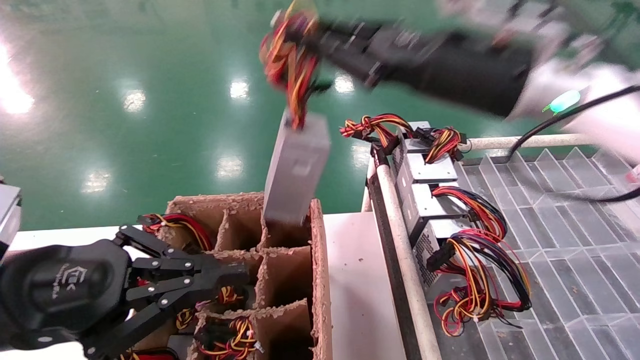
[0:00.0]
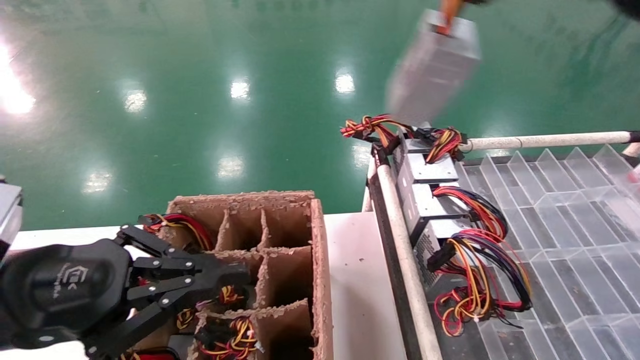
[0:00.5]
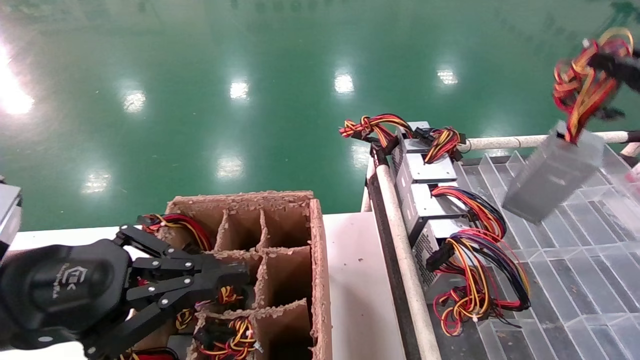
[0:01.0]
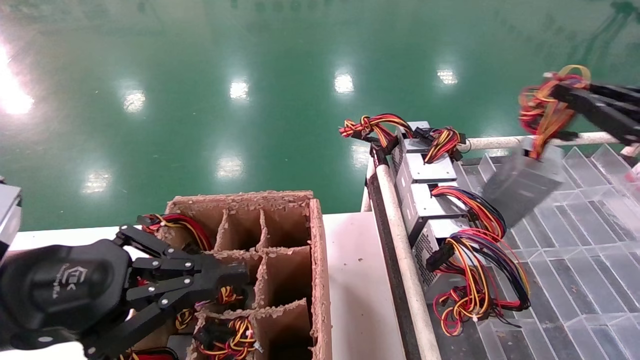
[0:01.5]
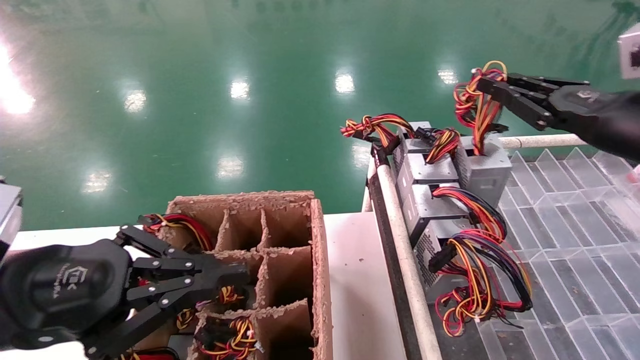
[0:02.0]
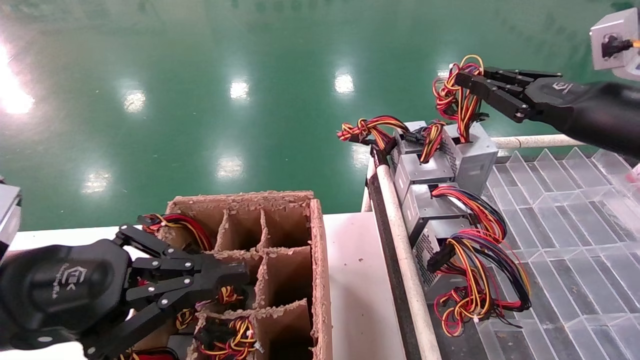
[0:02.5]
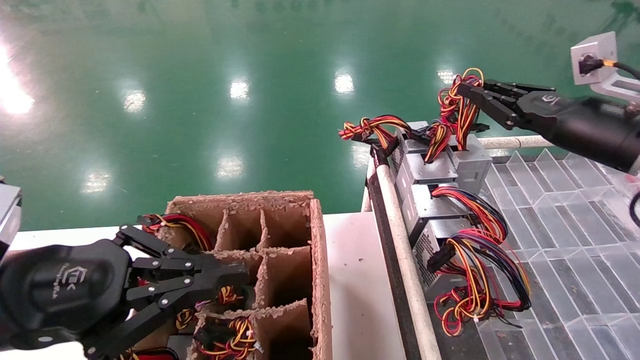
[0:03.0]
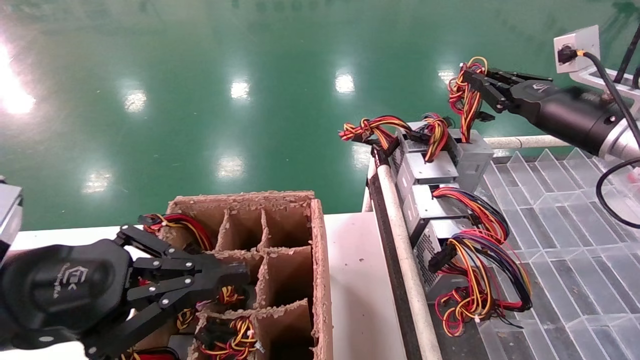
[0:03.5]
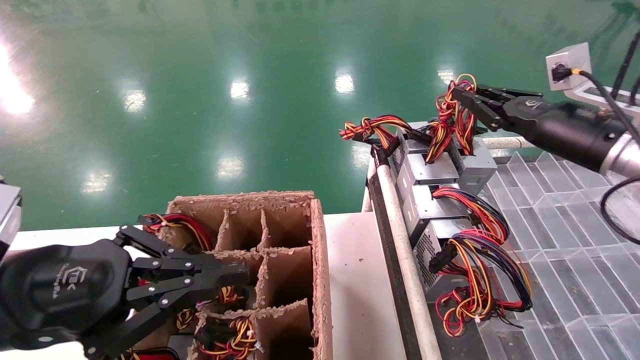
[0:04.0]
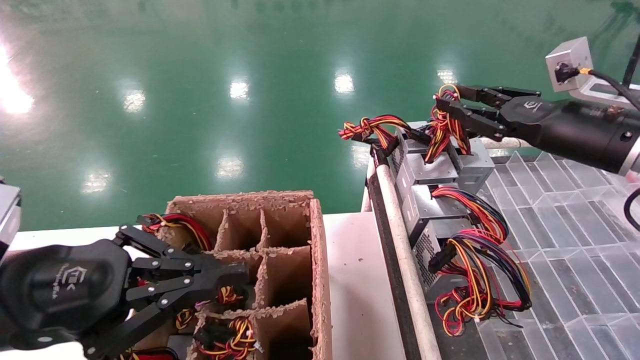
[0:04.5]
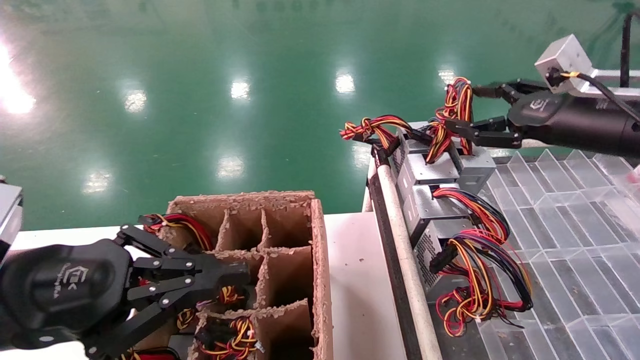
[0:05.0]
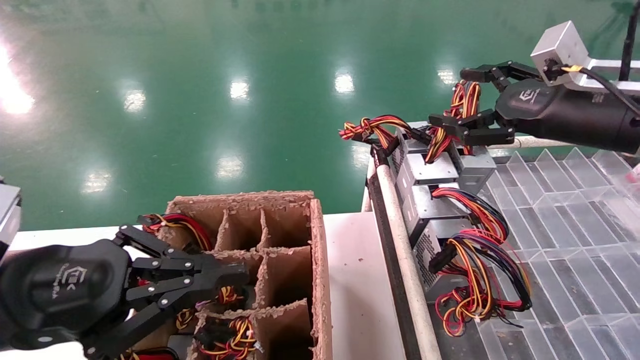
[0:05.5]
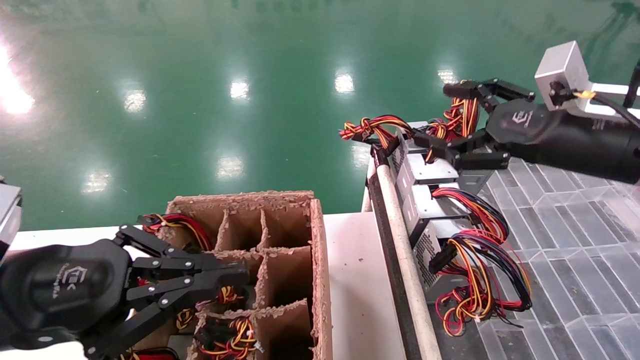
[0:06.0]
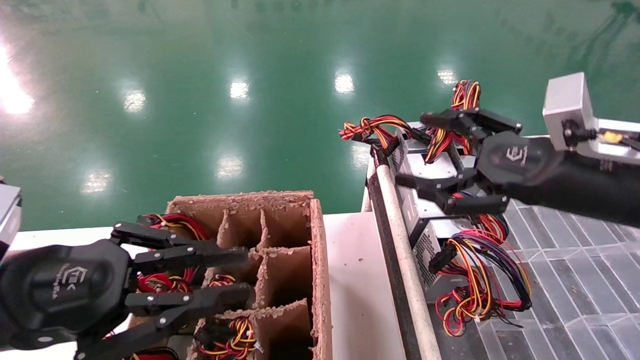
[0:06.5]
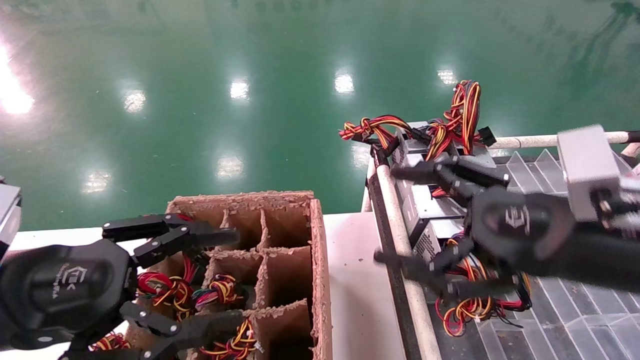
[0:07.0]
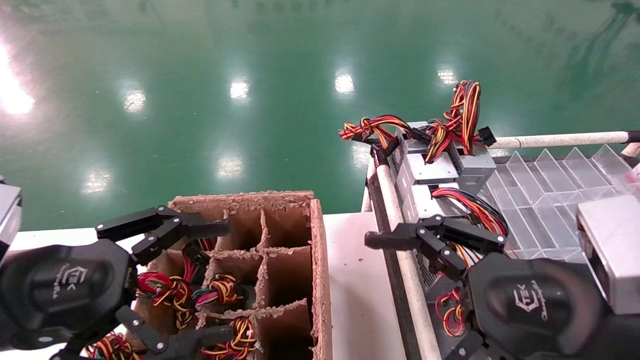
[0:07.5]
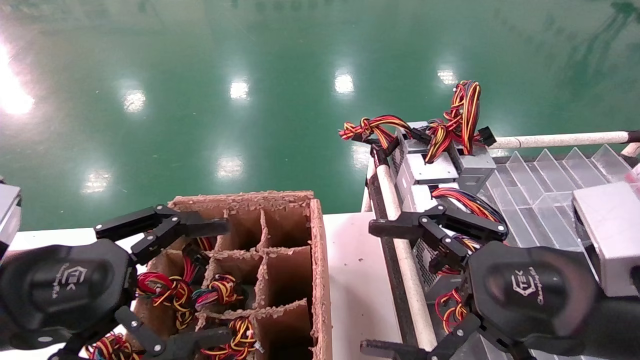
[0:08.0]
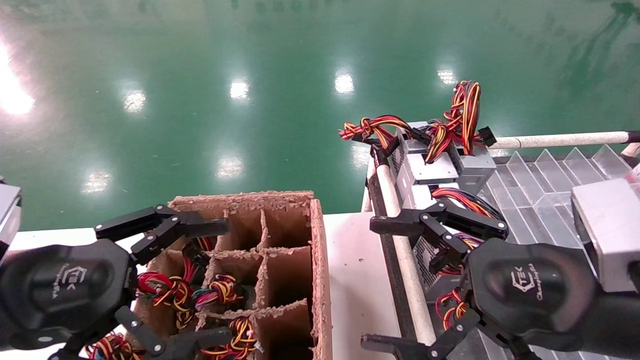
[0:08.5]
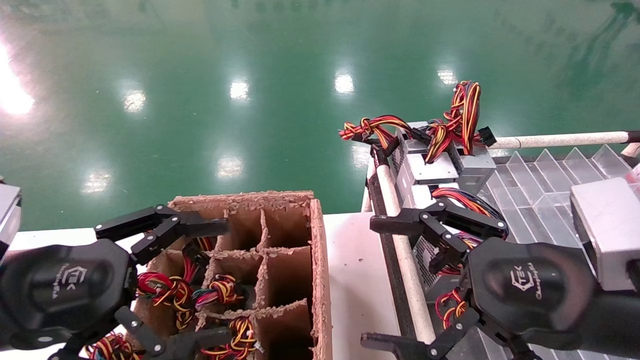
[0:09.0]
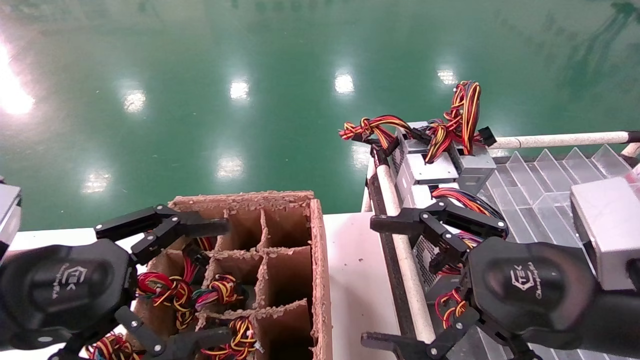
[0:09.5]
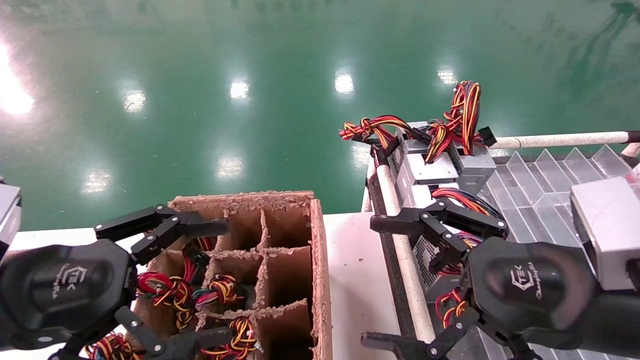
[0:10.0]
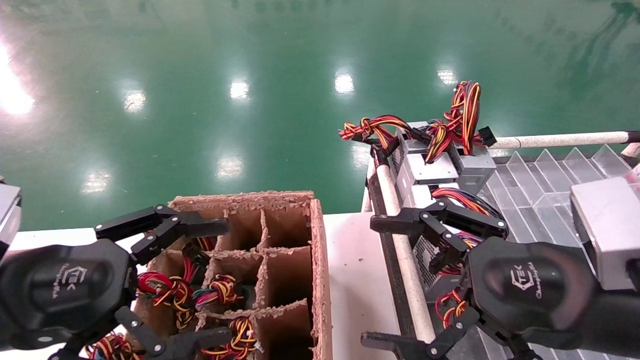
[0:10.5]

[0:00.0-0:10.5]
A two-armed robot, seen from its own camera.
Step, 0:00.0 to 0:04.0: Place the main unit power supply in the designated area.
0:00.0 to 0:02.0: The right gripper is displaced to the right by some 20 cm.
0:02.0 to 0:04.0: The right gripper travels forward by approximately 5 cm.
0:04.0 to 0:06.5: The right gripper is displaced backward and to the left by some 15 cm, and opens its fingers.
0:06.5 to 0:08.5: The left gripper opens; the right gripper moves backward and downward, about 10 cm.
0:08.5 to 0:10.5: Neither gripper changes place.

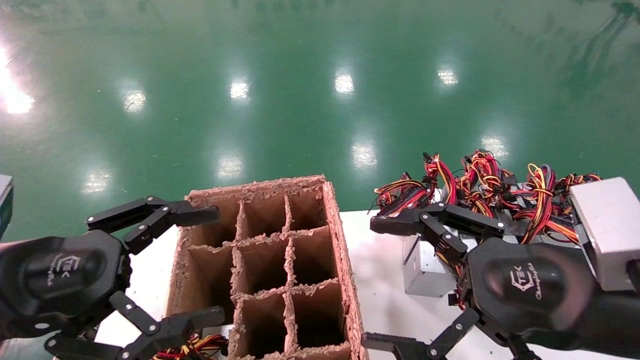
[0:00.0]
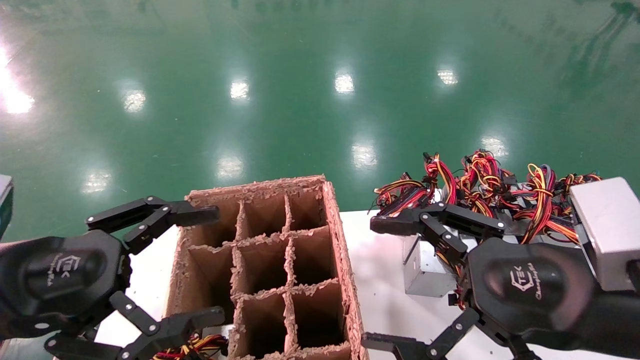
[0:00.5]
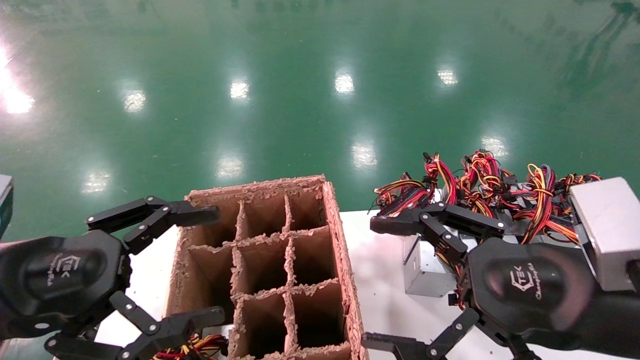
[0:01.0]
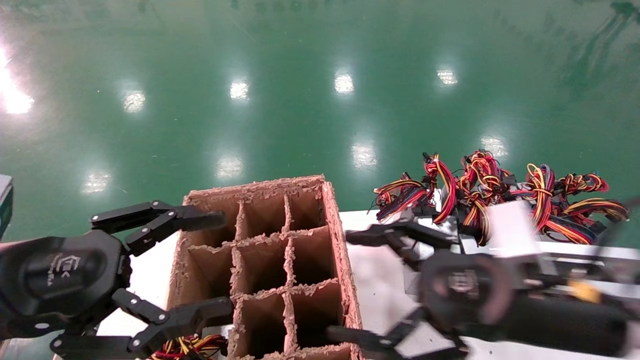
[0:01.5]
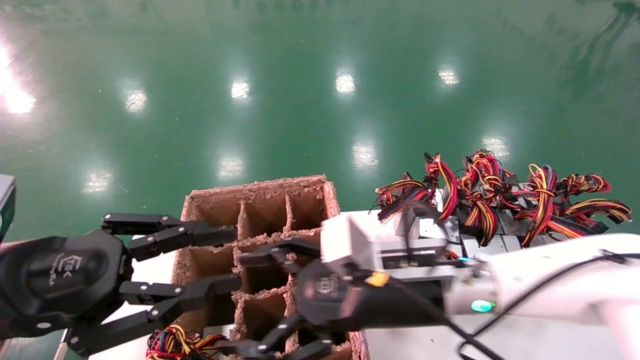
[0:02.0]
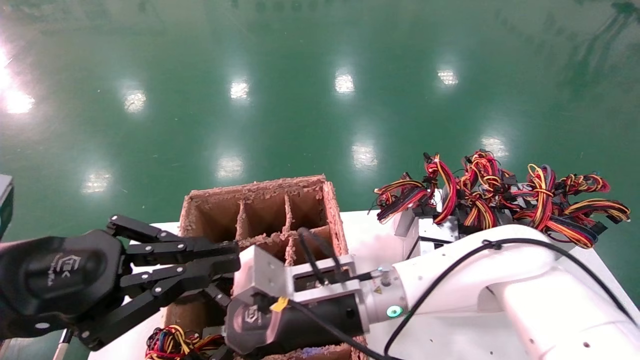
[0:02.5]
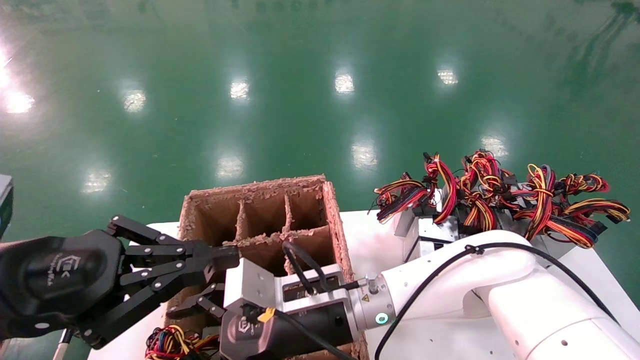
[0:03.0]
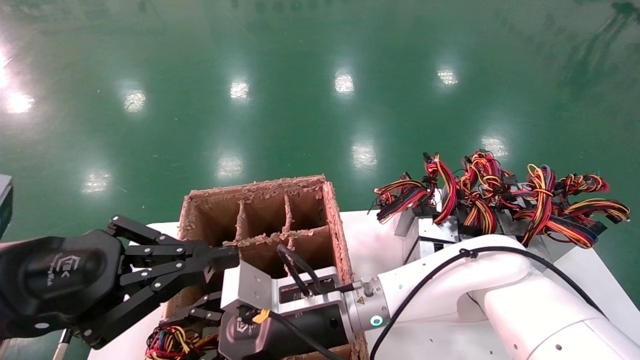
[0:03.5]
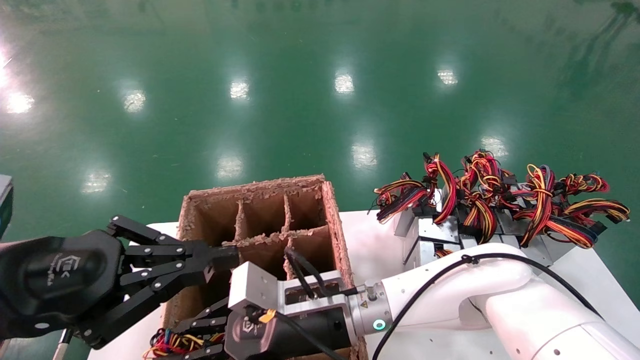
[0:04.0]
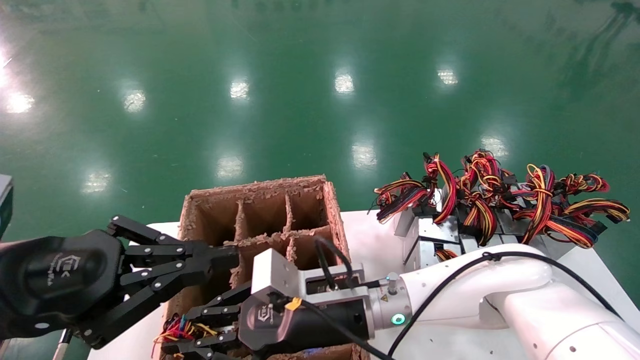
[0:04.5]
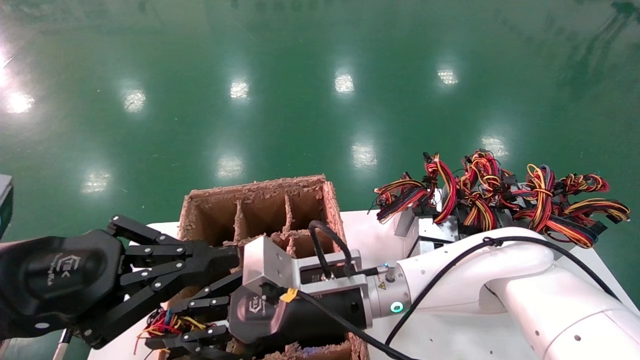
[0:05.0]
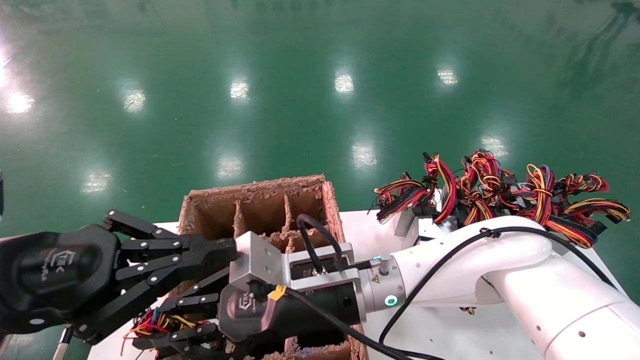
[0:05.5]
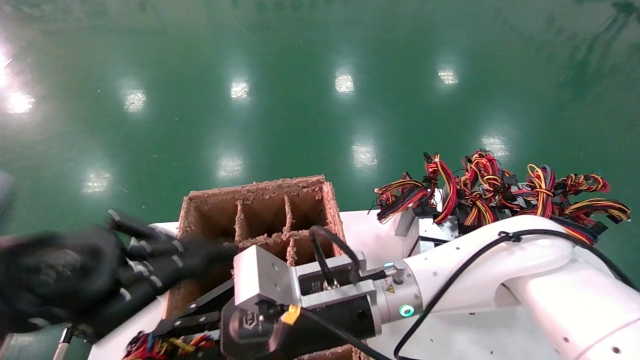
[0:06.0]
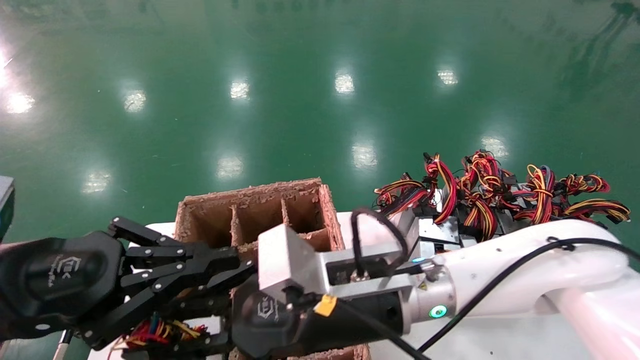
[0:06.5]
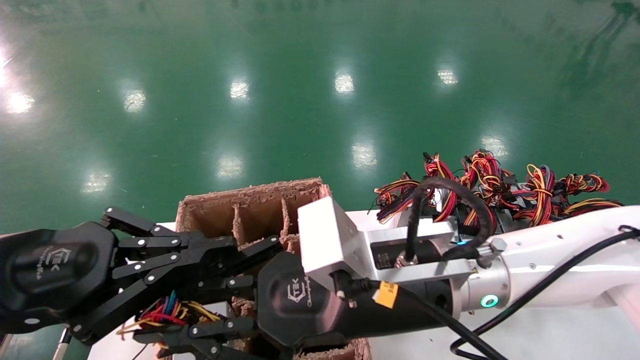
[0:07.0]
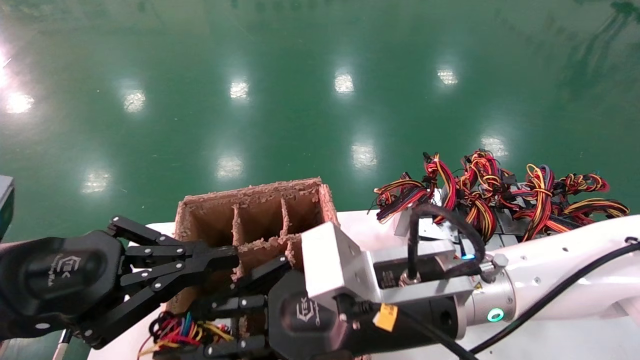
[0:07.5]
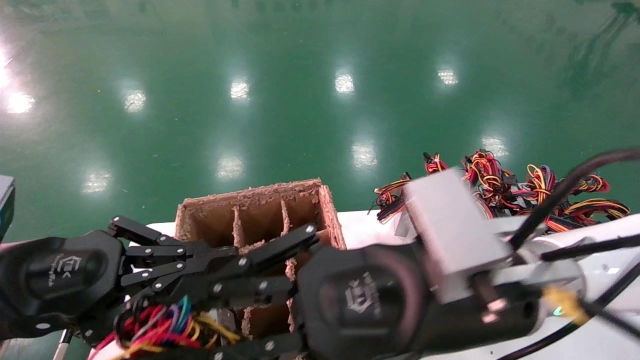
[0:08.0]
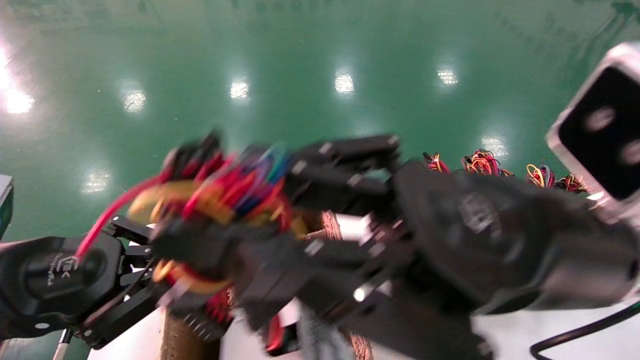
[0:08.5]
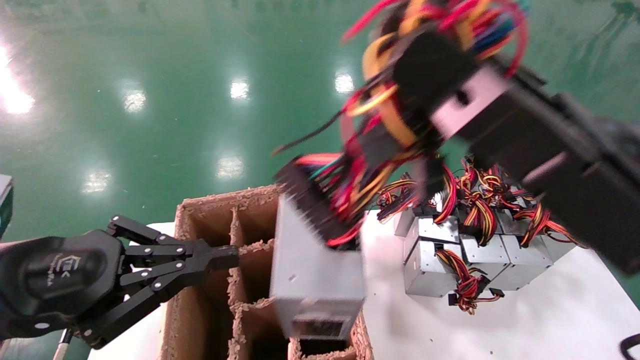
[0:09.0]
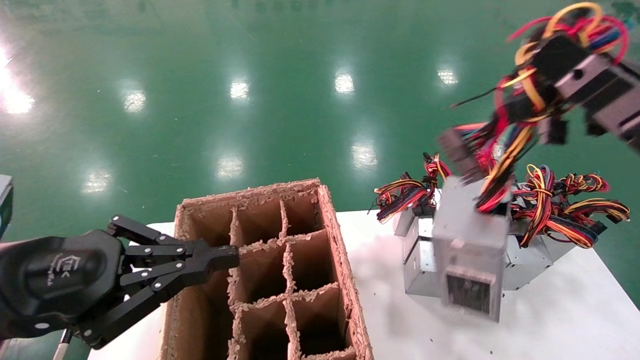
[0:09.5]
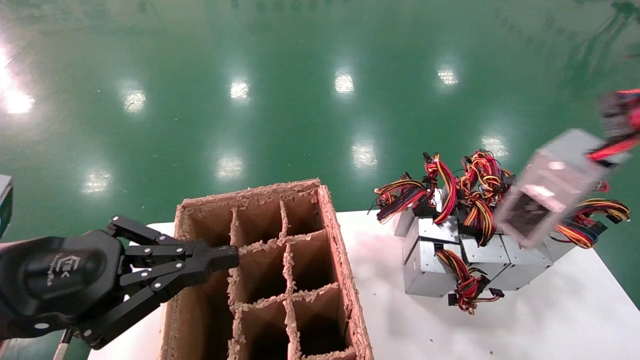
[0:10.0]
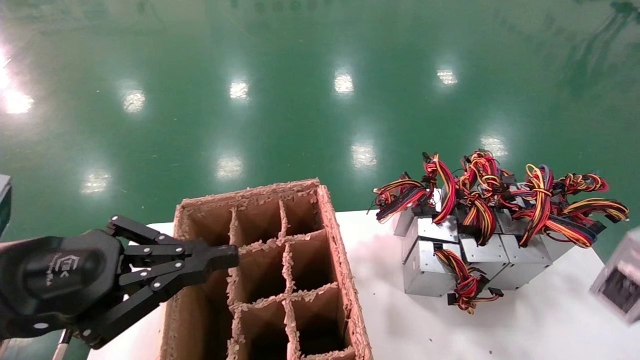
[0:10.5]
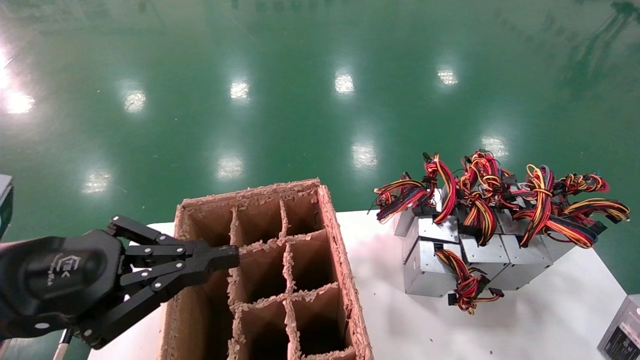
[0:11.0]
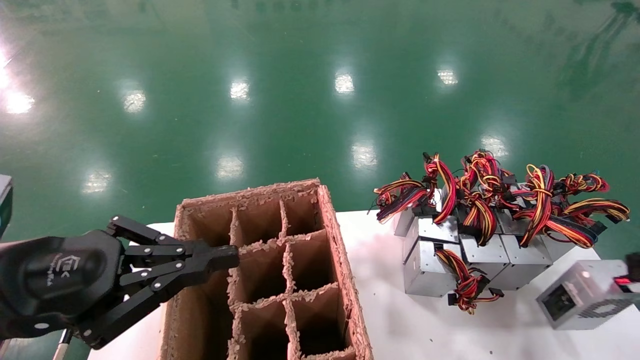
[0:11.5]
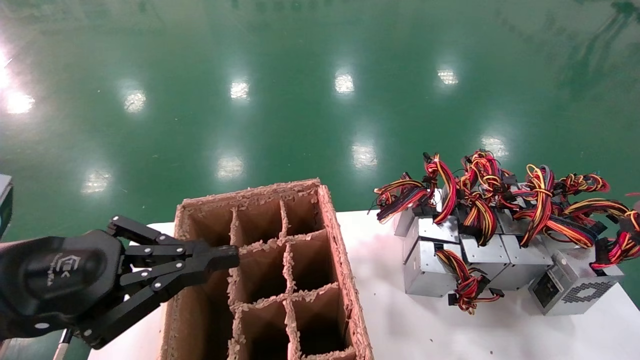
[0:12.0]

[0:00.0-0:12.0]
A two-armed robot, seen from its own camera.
Step, 0:01.5 to 0:04.0: Grab the main unit power supply from the containment box.
0:00.0 to 0:02.0: The left gripper closes its fingers. Meanwhile the right gripper is displaced to the left, forward and downward by some 20 cm.
0:02.0 to 0:04.0: The right gripper goes some 10 cm to the left and downward, and closes. The left gripper closes up.
0:04.0 to 0:06.0: The right gripper goes some 5 cm upward.
0:06.0 to 0:08.0: The right gripper travels to the right, backward and upward by some 15 cm.
0:08.0 to 0:10.0: The right gripper moves to the right, approximately 35 cm.
0:10.0 to 0:12.0: The right gripper travels downward and to the right by approximately 20 cm.
